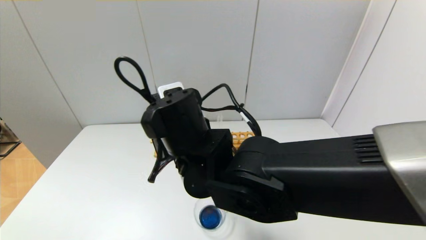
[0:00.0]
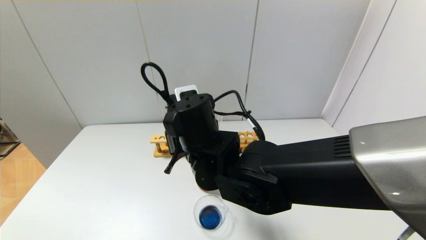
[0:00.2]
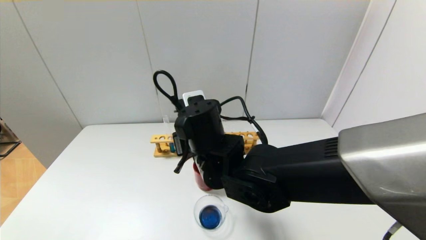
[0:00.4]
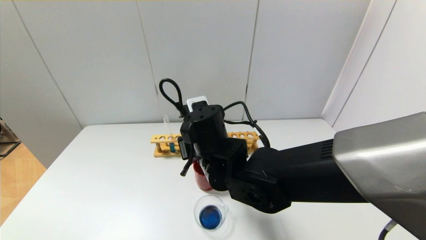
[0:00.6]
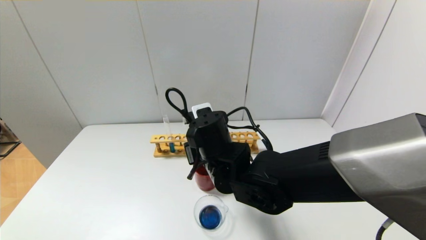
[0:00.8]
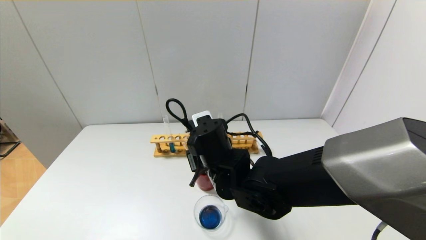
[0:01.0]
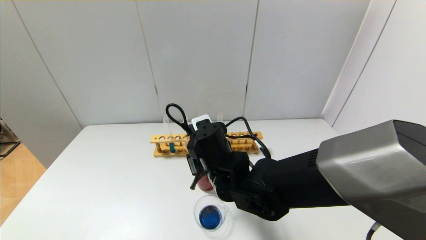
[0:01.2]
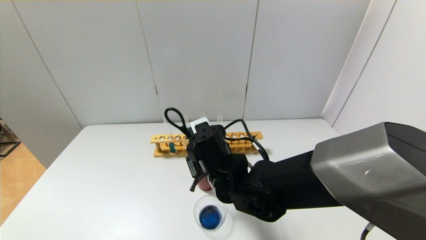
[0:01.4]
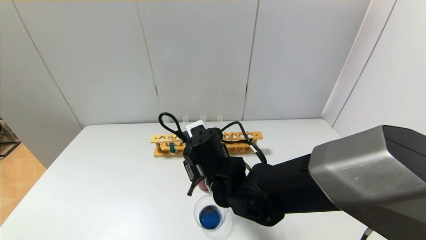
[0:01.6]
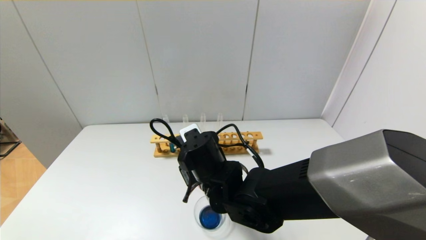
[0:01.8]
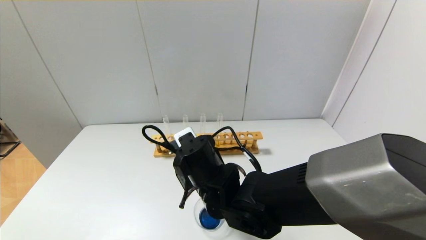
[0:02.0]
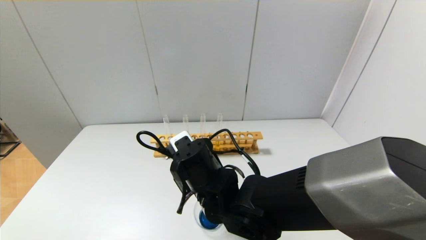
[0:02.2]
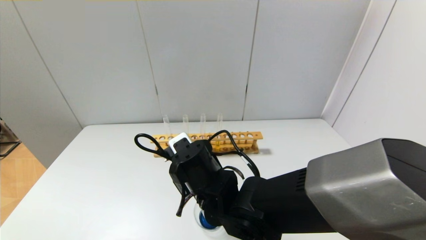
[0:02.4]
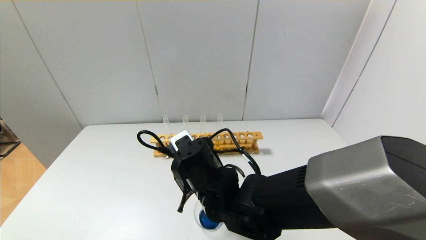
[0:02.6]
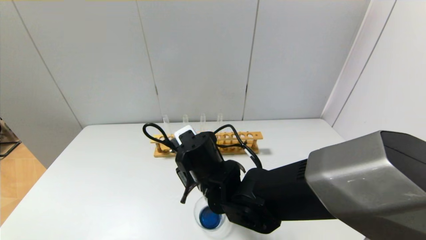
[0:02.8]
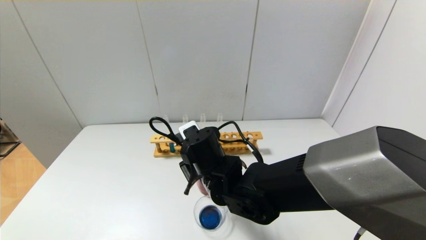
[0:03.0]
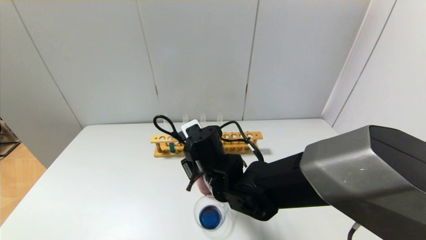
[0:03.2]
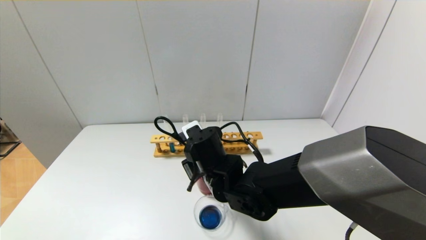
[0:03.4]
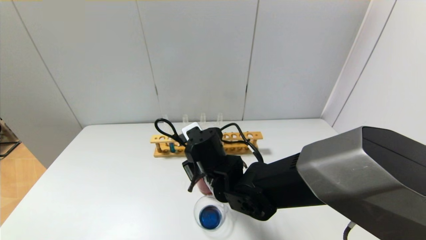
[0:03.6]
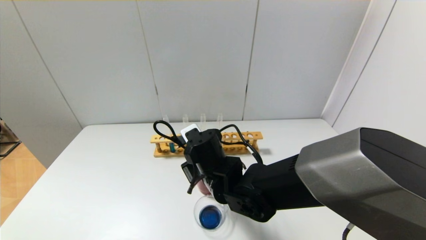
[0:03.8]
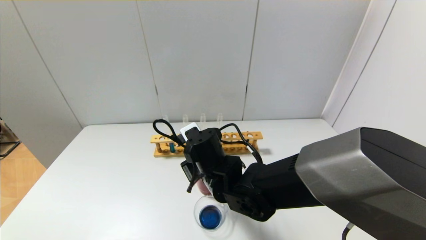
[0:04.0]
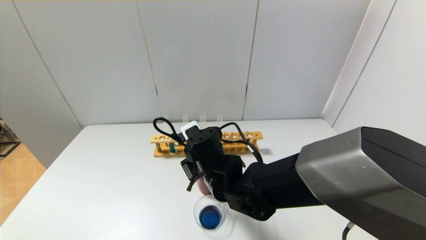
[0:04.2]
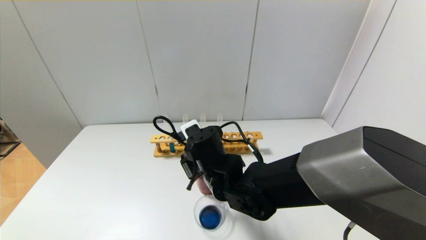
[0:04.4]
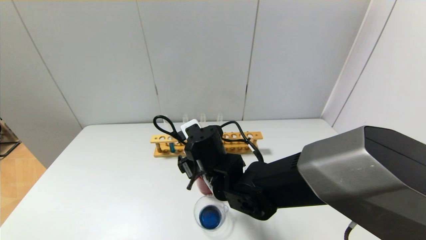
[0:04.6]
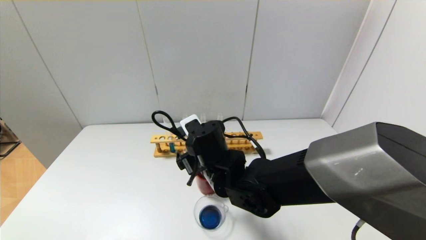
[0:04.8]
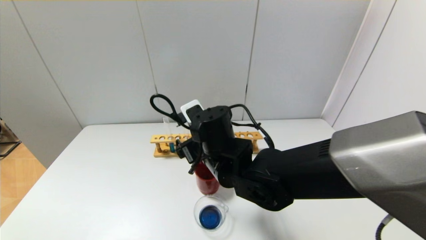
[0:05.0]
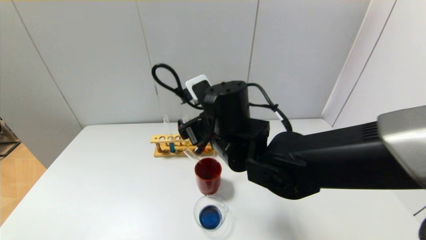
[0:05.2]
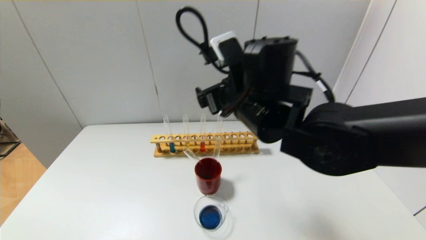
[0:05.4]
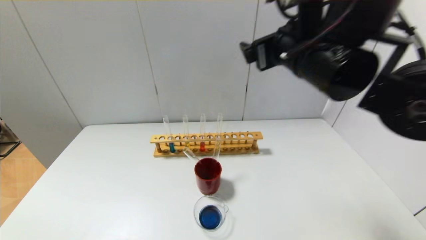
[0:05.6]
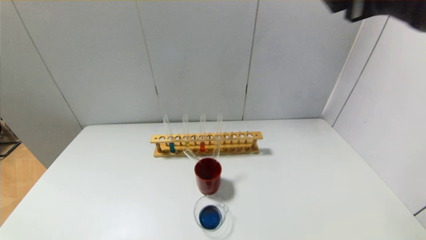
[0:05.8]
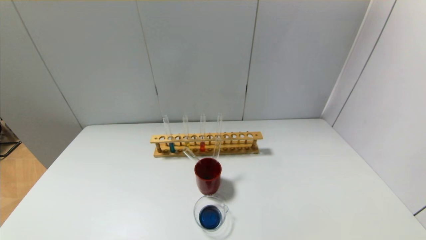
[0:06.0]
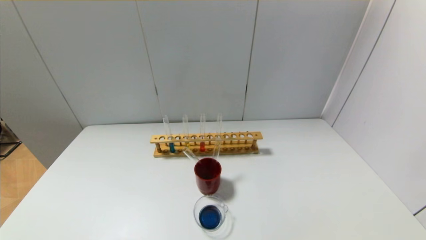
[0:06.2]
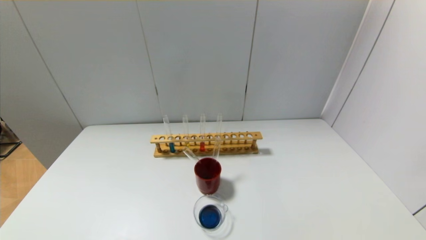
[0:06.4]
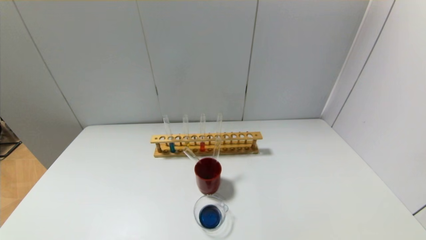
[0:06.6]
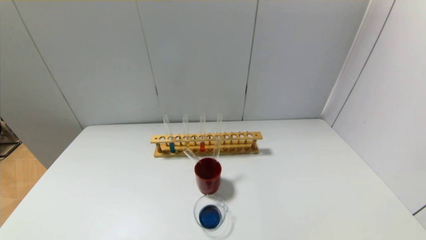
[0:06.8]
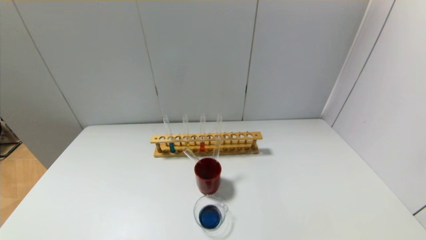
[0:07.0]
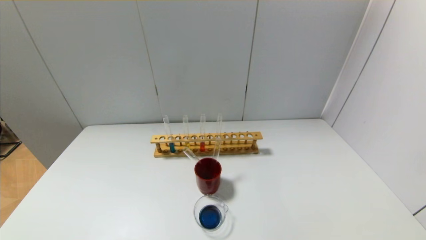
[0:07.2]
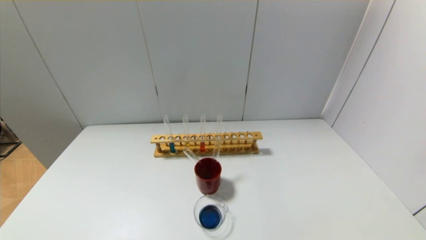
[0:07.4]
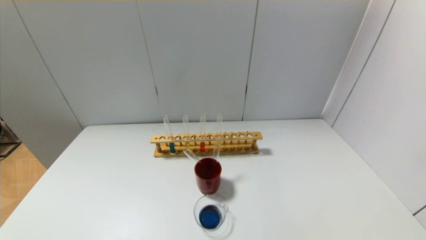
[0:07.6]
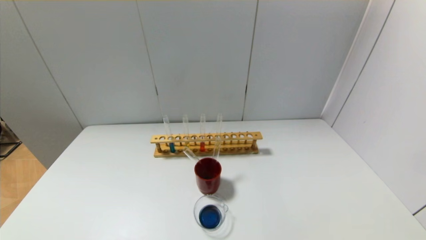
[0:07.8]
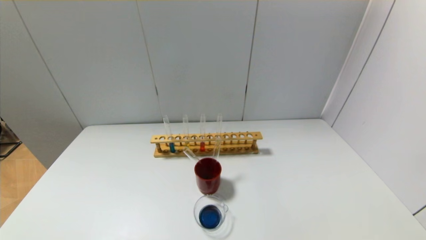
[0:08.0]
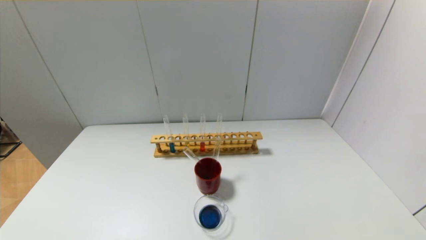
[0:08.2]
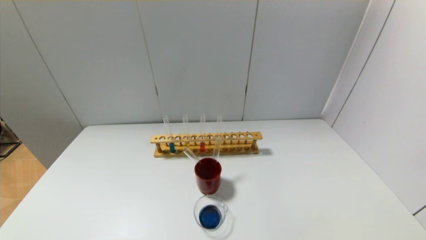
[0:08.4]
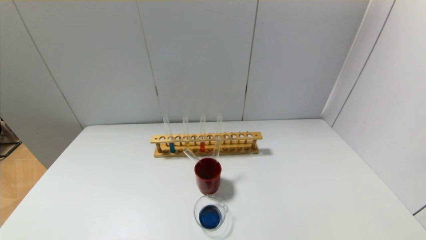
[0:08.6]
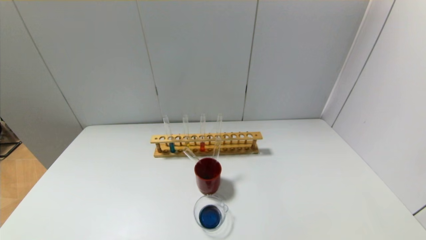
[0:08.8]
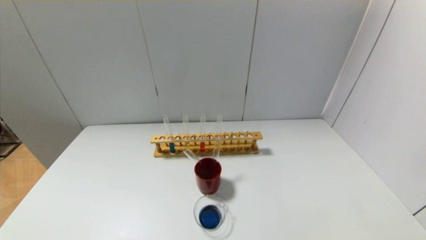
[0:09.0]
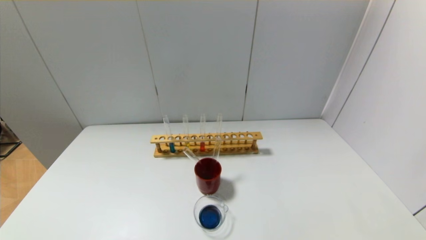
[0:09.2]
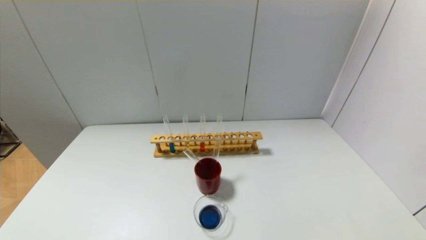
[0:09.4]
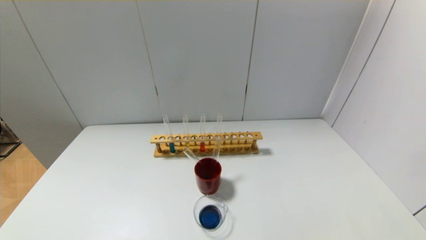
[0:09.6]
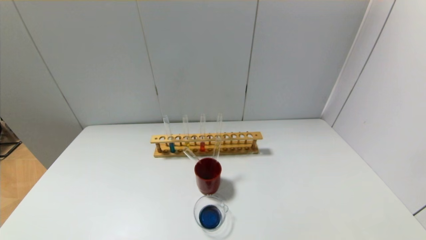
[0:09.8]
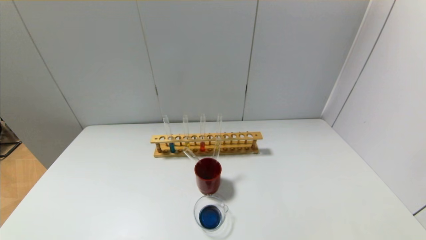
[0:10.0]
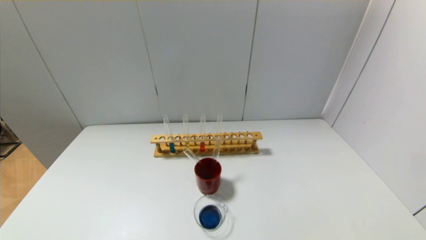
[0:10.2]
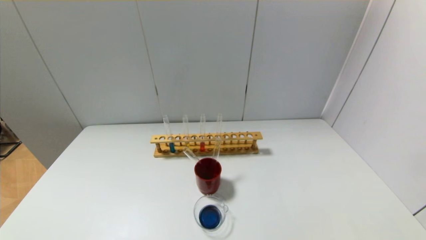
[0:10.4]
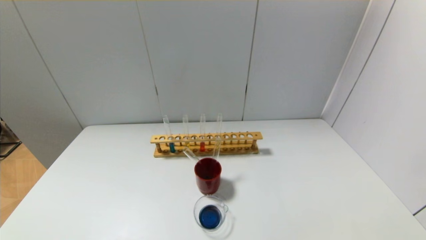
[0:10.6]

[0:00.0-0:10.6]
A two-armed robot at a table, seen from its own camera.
Step, 0:00.0 to 0:04.2: Place the test tube into the brown cup with the right gripper.
0:00.0 to 0:01.6: The right gripper heads downward, covering about 10 cm.
0:01.6 to 0:03.0: The grippers move only a little.
0:03.0 to 0:04.6: The right gripper opens.
0:04.6 to 0:06.0: The right gripper moves upward, to the right and backward, roughly 50 cm.

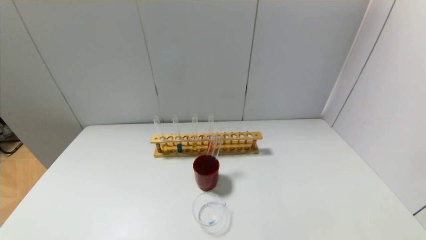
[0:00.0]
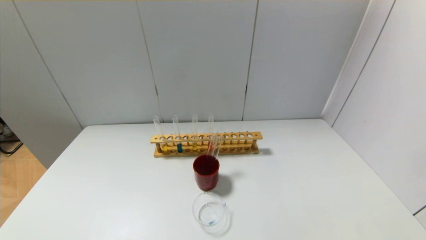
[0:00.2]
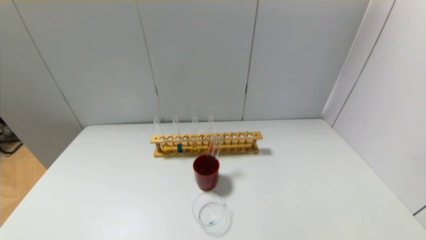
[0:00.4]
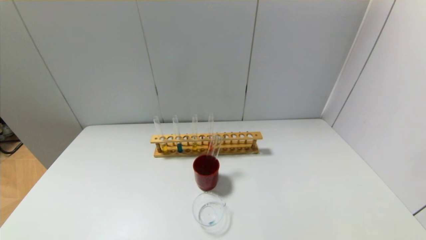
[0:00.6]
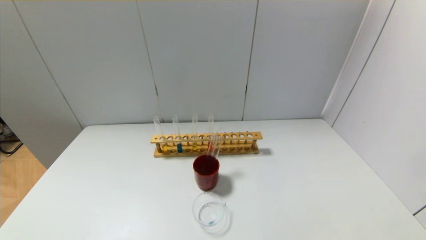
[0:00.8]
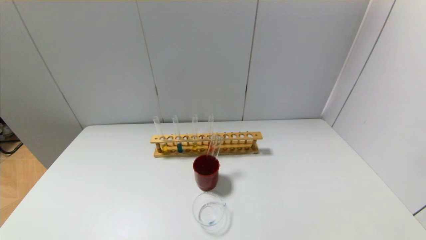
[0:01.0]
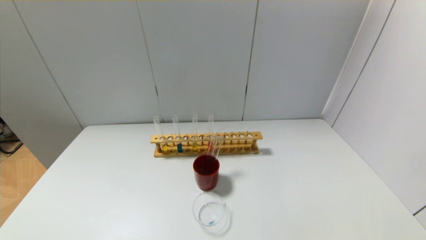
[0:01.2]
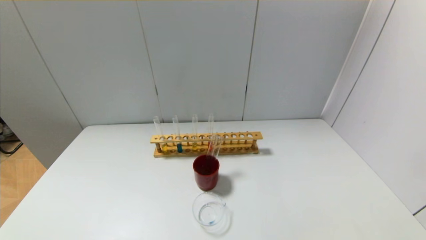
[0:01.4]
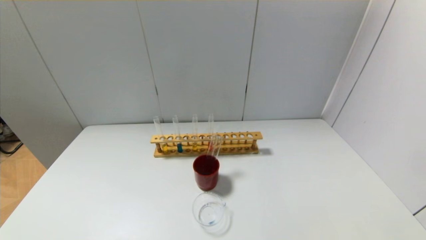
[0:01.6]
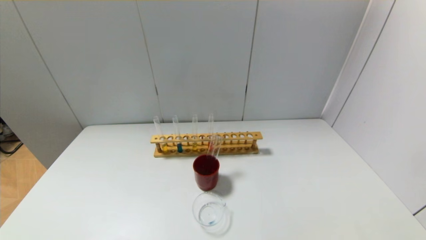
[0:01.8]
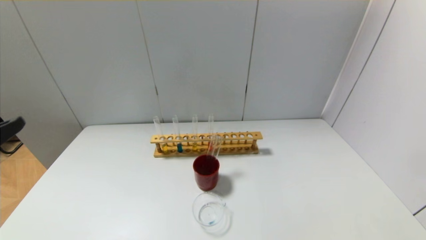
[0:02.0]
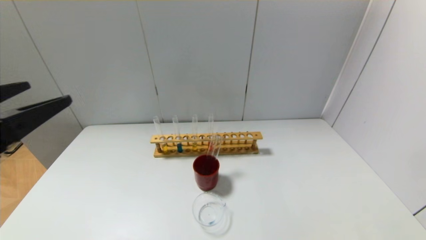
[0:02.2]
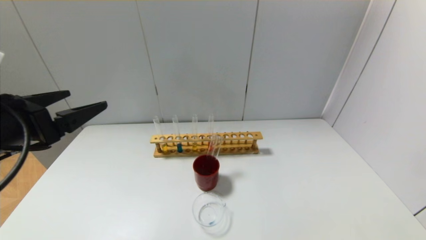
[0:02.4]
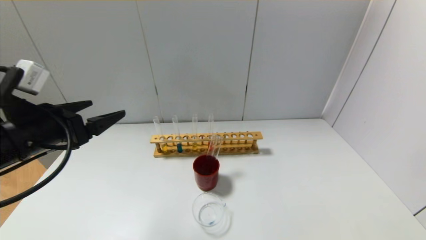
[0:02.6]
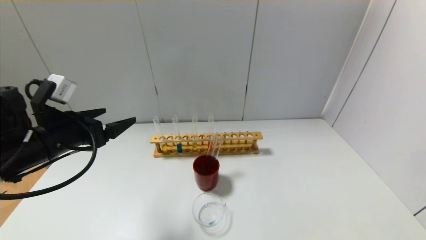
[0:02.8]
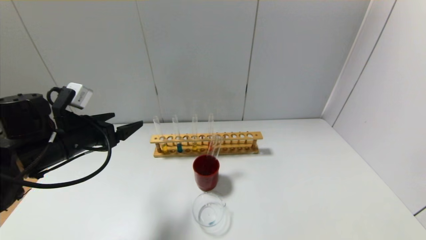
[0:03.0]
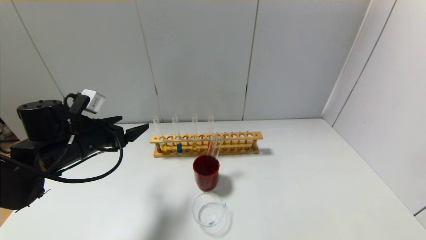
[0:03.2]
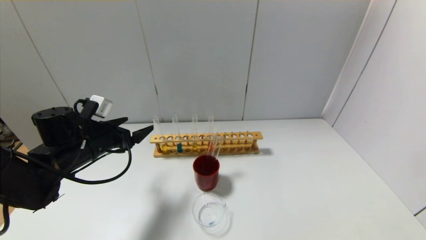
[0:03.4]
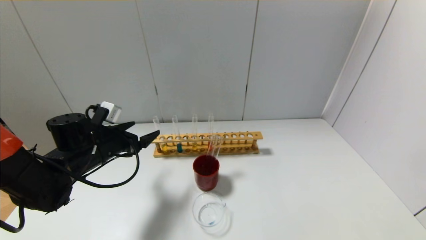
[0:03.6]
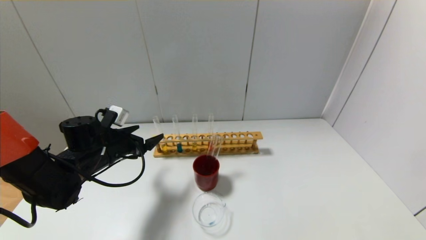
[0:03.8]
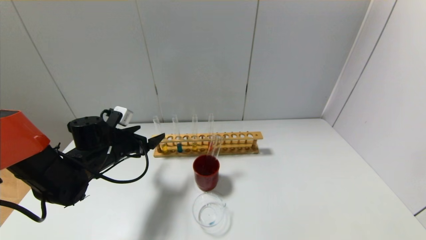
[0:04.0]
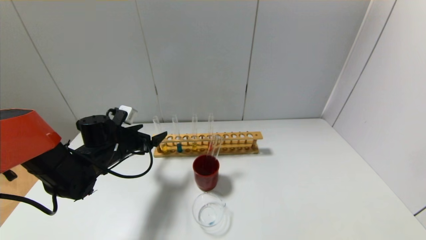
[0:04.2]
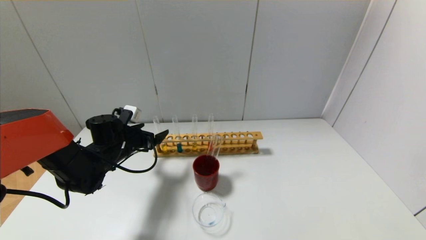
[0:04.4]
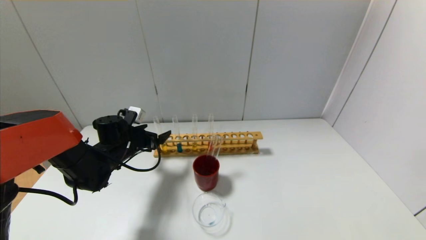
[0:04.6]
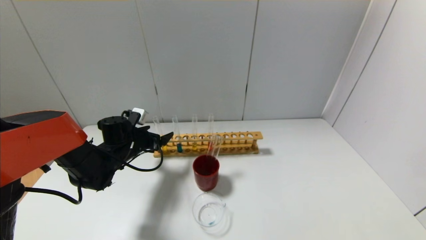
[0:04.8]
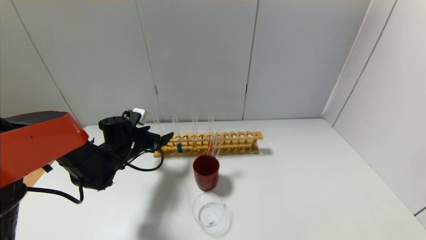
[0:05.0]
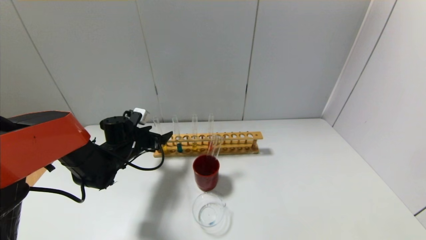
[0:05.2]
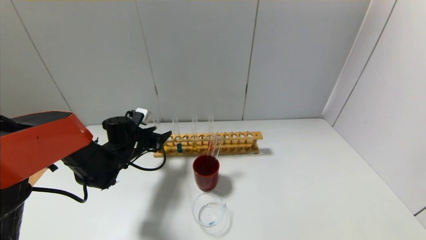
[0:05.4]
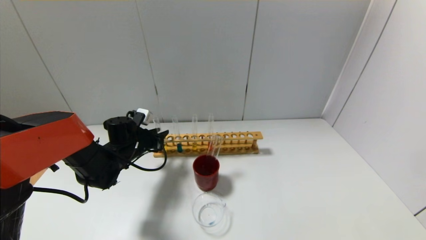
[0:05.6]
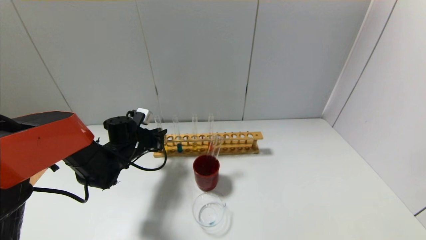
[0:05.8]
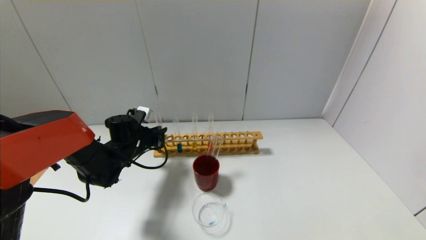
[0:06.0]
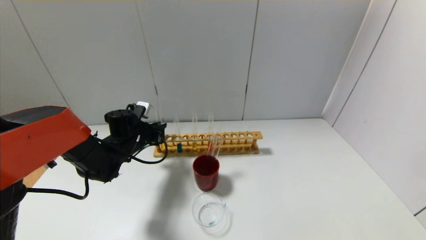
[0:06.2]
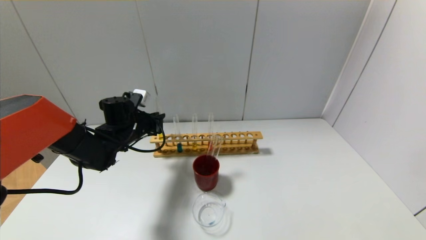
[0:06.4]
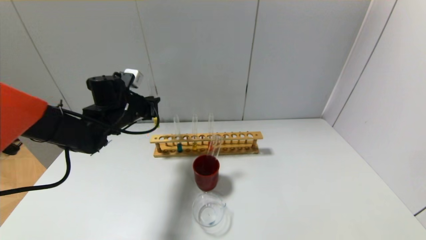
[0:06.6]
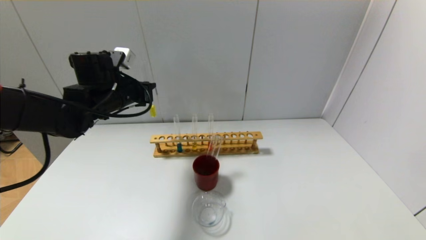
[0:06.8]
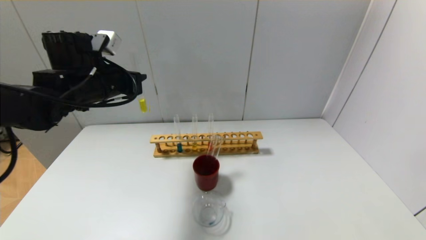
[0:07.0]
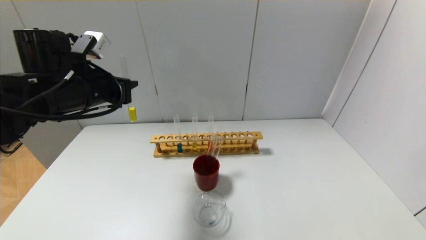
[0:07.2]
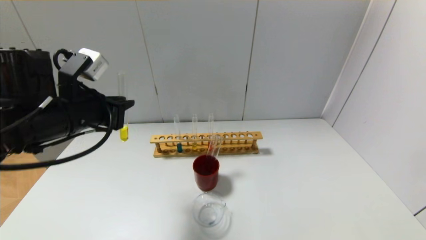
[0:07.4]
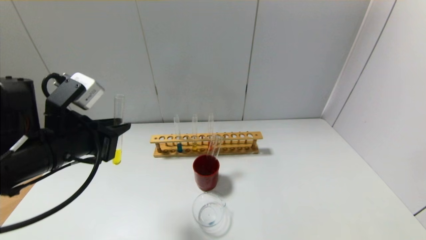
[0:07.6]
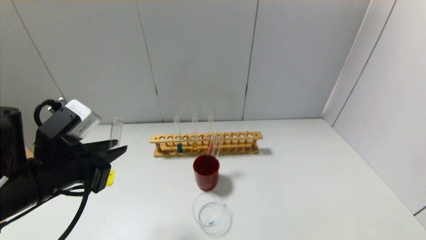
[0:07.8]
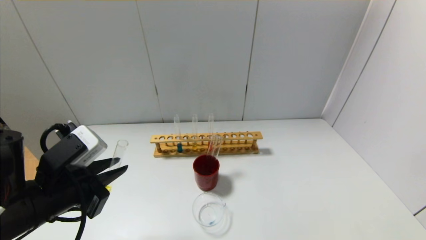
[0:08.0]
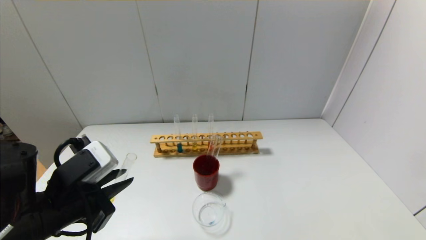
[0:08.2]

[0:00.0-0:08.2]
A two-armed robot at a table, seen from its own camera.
Step, 0:00.0 to 0:05.8: Grasp the yellow reagent with the left gripper.
0:01.6 to 0:03.2: The left gripper goes approximately 30 cm forward.
0:03.2 to 0:05.0: The left gripper moves forward and downward, approximately 15 cm.
0:05.0 to 0:06.6: The left gripper shifts some 10 cm upward, and closes its fingers.
0:06.6 to 0:08.2: The left gripper goes about 25 cm backward.
